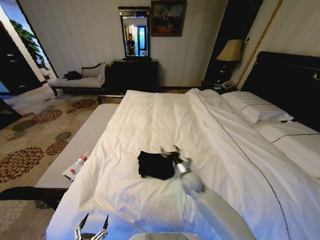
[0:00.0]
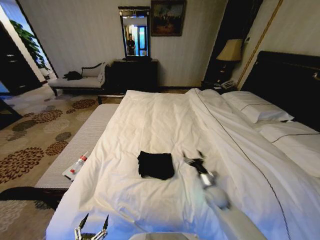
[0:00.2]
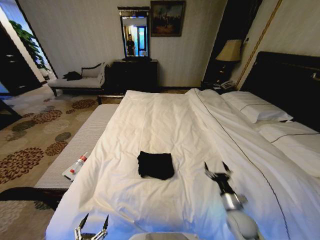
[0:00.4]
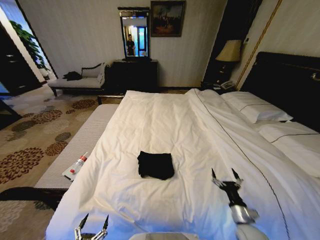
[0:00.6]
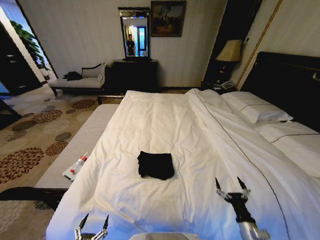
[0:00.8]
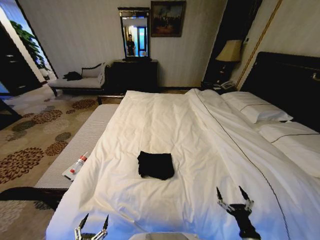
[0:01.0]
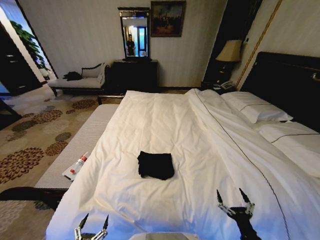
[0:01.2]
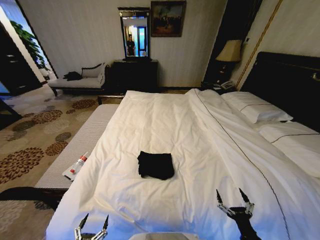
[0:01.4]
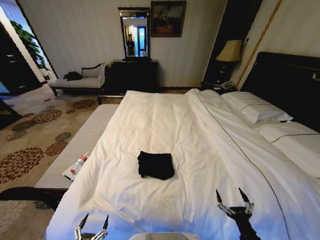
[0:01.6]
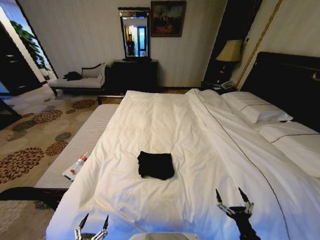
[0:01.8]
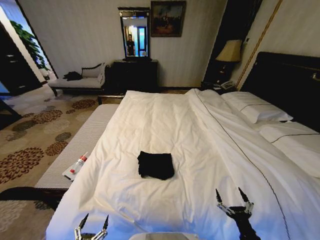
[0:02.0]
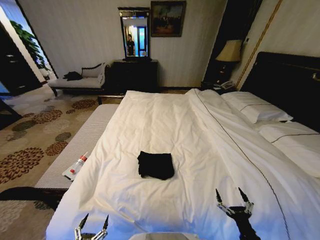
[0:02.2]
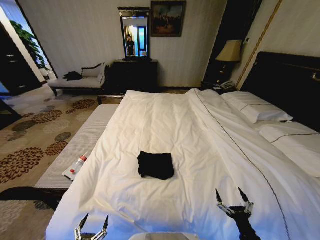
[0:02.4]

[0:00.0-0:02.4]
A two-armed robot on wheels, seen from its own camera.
Task of the whole recording: Fold the clothes on the bed.
0:00.0 to 0:01.2: The right gripper goes some 35 cm backward and to the right.
0:01.2 to 0:02.4: The two grippers keep their place.
